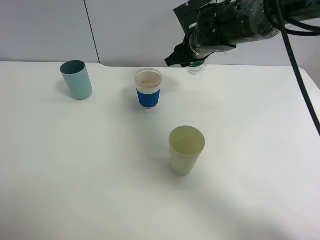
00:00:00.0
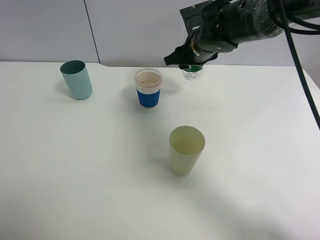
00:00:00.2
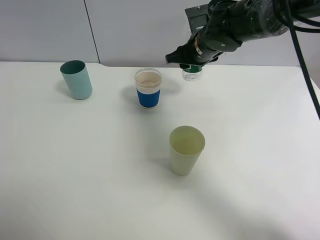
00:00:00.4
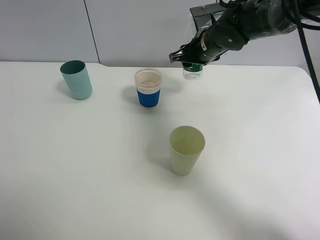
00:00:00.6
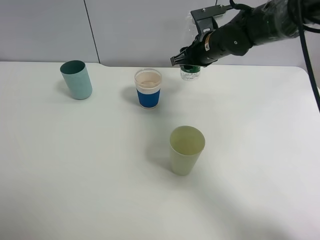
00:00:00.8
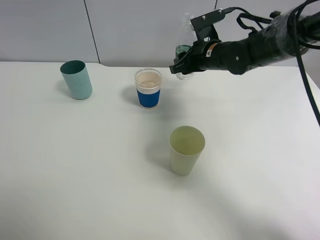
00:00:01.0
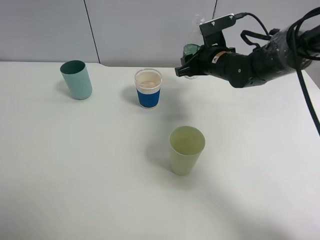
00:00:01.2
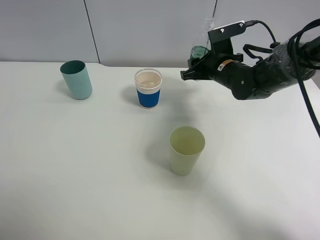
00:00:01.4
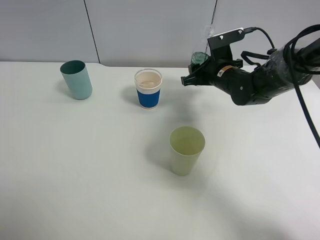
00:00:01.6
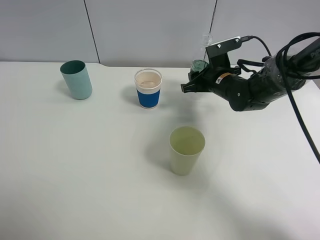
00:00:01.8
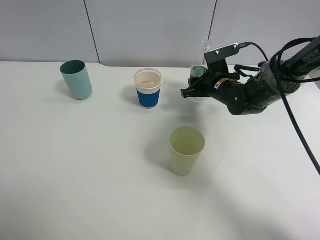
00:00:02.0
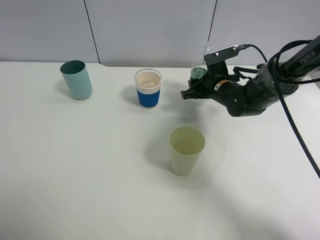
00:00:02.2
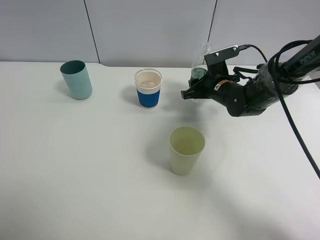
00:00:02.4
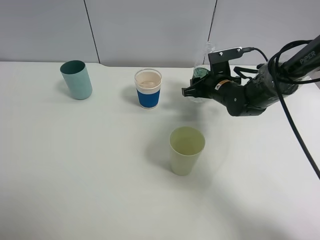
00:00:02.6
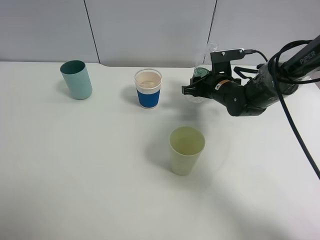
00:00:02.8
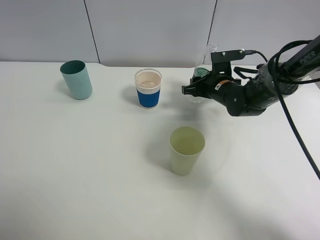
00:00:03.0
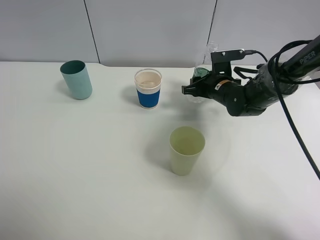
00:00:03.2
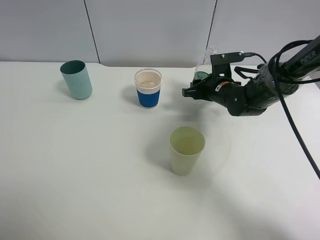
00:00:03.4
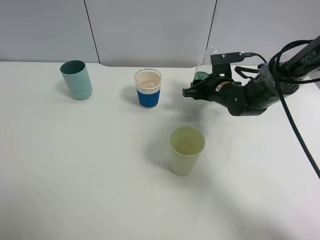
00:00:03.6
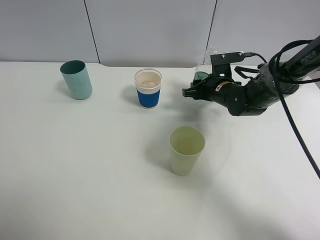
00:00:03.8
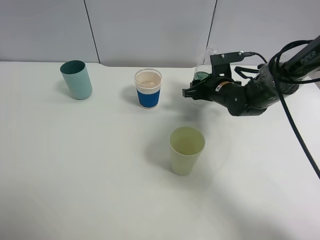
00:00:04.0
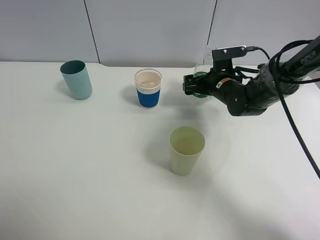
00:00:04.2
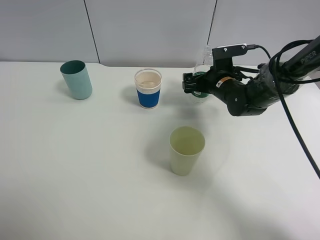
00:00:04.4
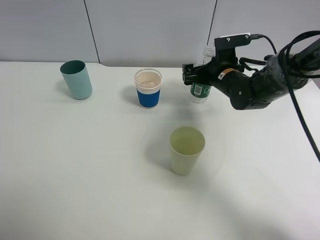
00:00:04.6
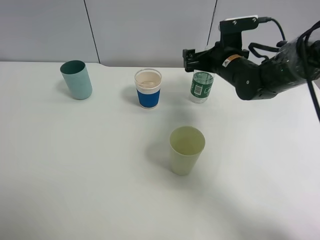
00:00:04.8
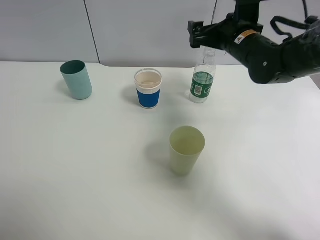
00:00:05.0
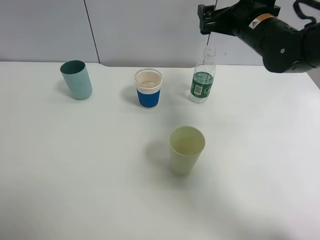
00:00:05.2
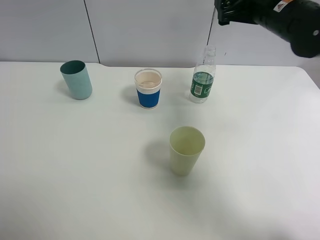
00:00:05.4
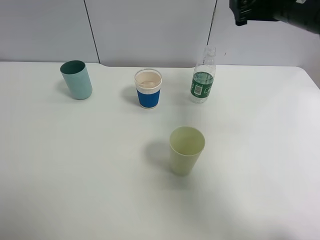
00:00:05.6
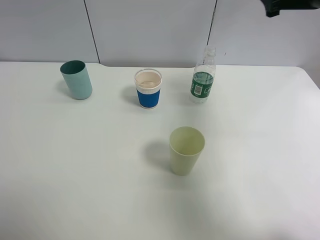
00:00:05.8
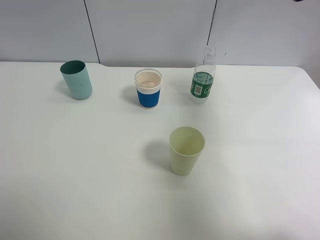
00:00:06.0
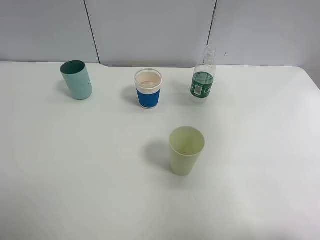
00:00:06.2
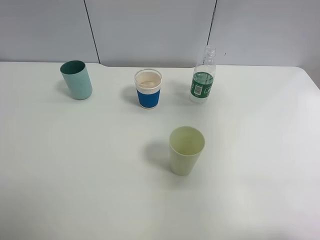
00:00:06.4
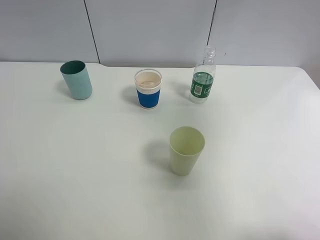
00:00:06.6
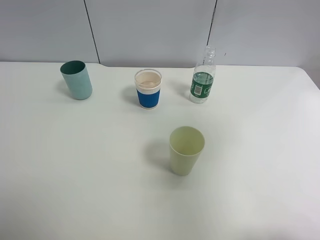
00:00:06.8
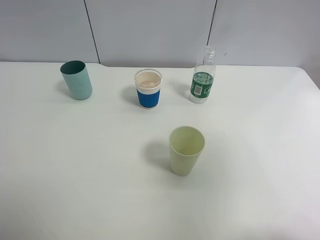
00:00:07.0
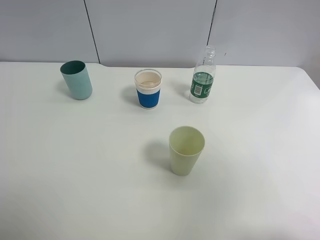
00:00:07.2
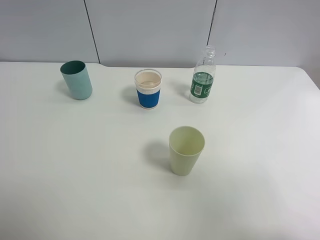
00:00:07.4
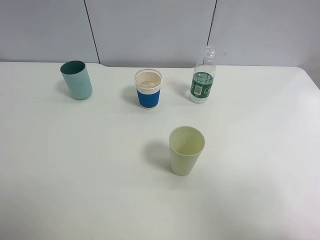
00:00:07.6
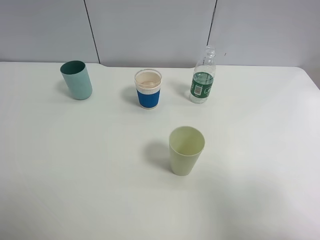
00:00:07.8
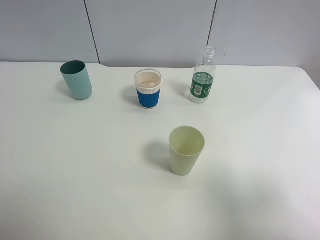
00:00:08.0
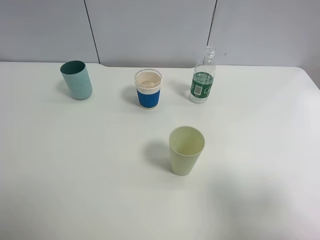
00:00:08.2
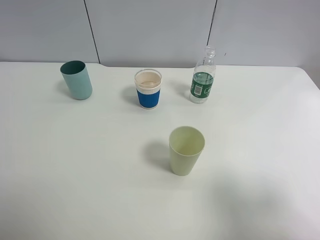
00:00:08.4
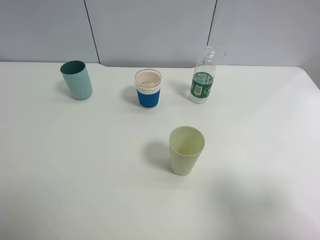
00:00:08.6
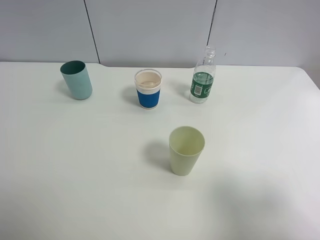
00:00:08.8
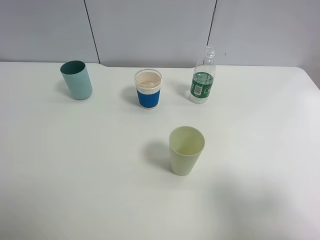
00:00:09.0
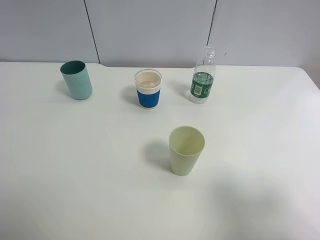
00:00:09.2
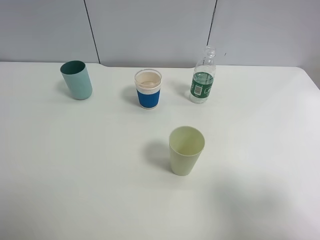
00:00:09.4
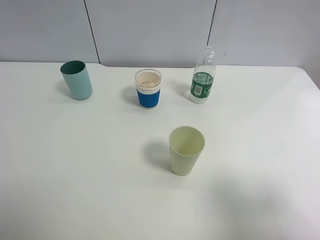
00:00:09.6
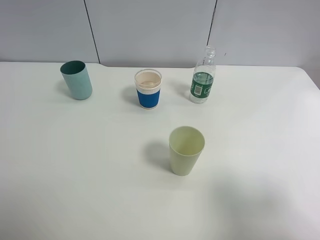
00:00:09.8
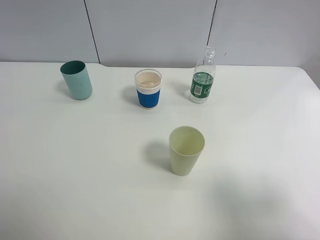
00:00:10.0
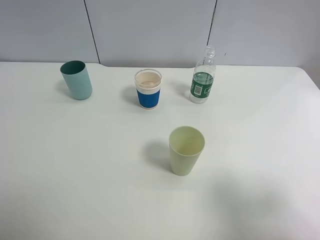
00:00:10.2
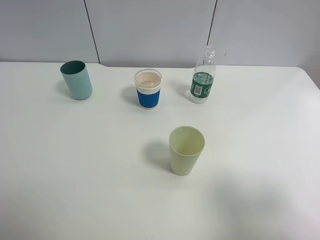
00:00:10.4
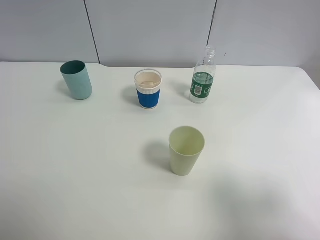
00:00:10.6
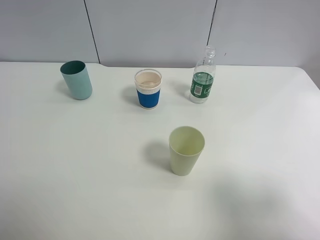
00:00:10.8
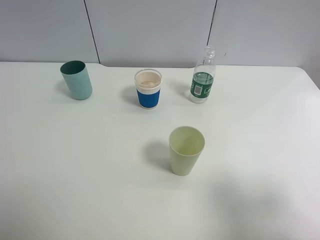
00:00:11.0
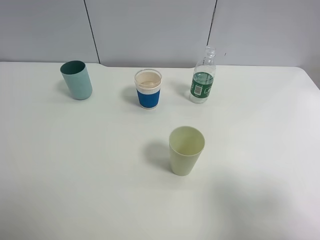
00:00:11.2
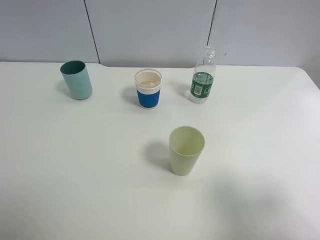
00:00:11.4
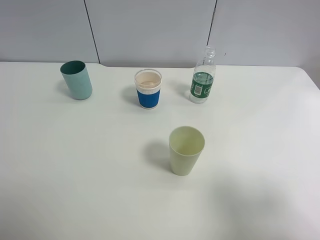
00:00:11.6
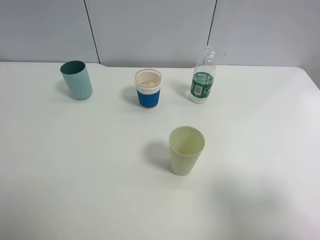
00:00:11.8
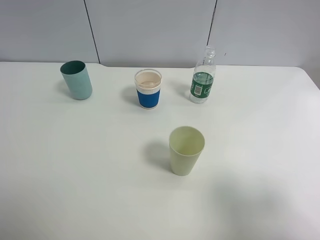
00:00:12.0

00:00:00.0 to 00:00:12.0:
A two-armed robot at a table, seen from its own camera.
Task of the whole recording: use a clamp to hold the bottle of the drink, pour the beverage into a random cup, then clamp the cup containing the drink and pour the drink into another random cup.
Step, 00:00:00.0 to 00:00:04.2: Place the water bottle on the table with right gripper.
00:00:00.0 to 00:00:01.6: The right gripper shifts approximately 10 cm downward and to the right.
00:00:01.6 to 00:00:03.0: The grippers stay close to where they were, moving slightly.
00:00:03.0 to 00:00:04.4: The right gripper opens up.
00:00:04.4 to 00:00:06.0: The right gripper shifts some 30 cm upward and to the right.
00:00:06.0 to 00:00:07.6: The right gripper shifts roughly 30 cm backward.
00:00:09.0 to 00:00:12.0: Both grippers stay about where they are.

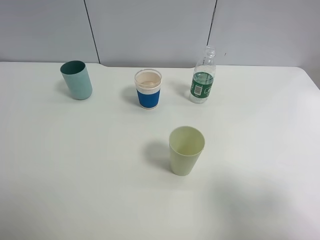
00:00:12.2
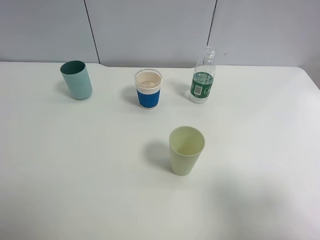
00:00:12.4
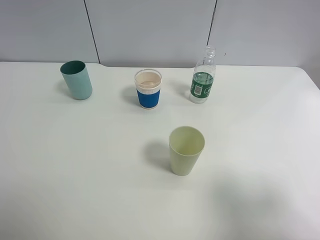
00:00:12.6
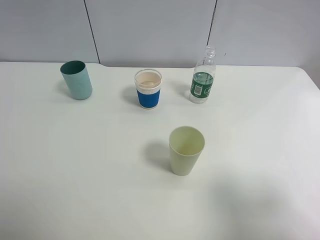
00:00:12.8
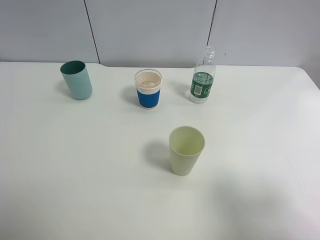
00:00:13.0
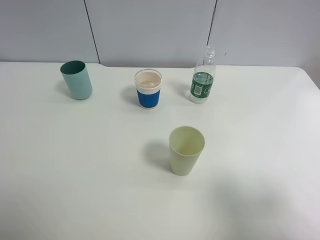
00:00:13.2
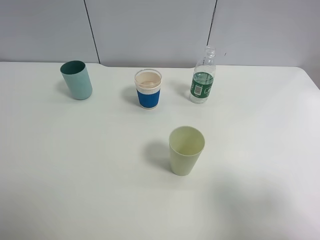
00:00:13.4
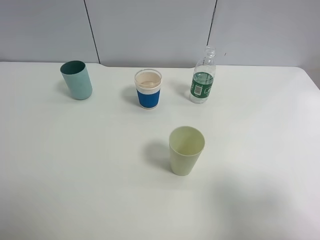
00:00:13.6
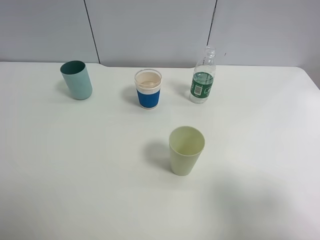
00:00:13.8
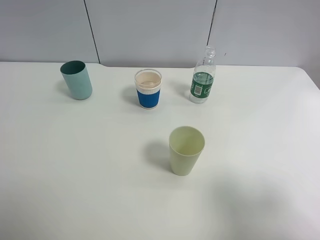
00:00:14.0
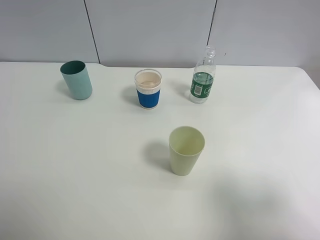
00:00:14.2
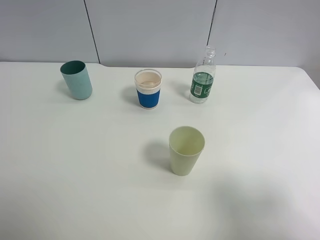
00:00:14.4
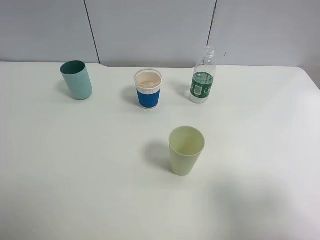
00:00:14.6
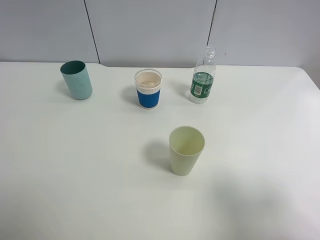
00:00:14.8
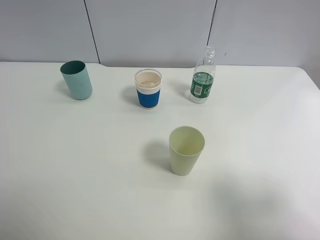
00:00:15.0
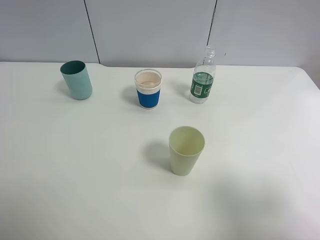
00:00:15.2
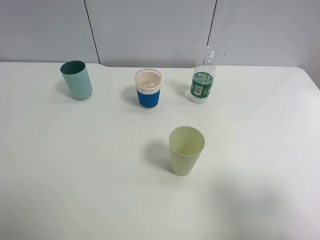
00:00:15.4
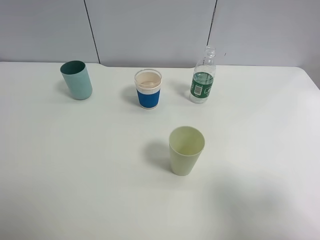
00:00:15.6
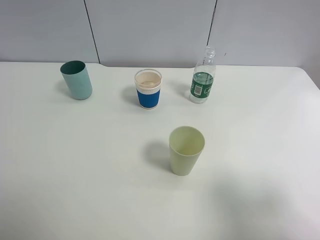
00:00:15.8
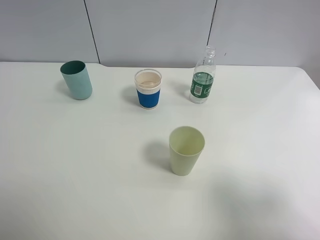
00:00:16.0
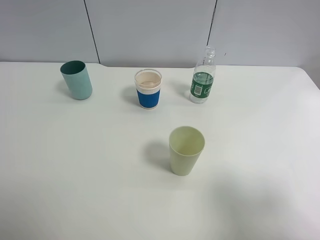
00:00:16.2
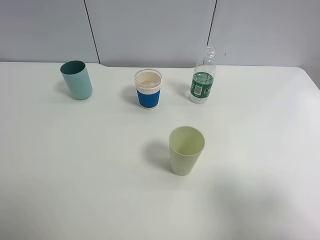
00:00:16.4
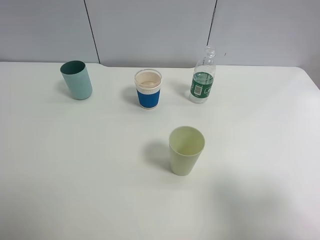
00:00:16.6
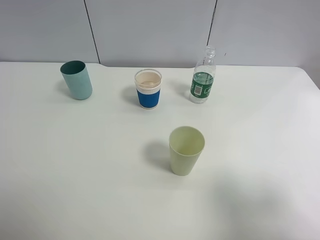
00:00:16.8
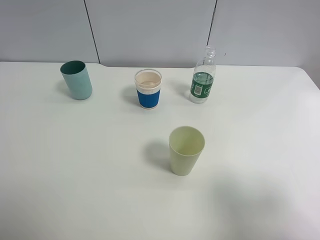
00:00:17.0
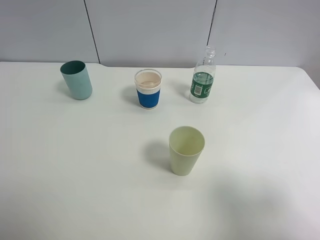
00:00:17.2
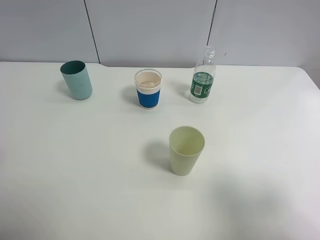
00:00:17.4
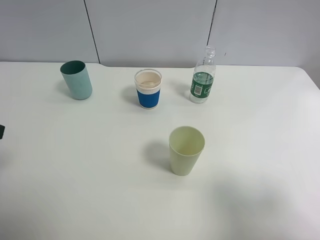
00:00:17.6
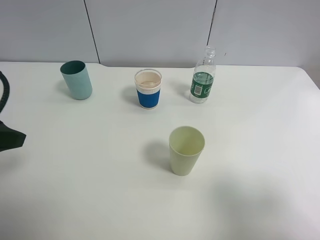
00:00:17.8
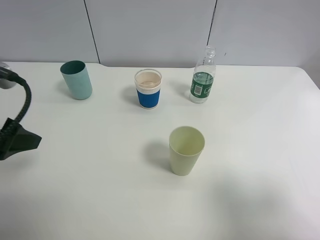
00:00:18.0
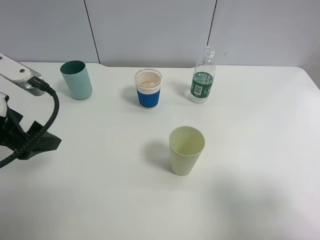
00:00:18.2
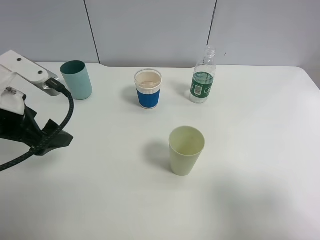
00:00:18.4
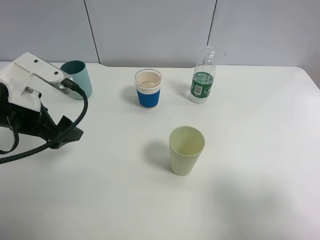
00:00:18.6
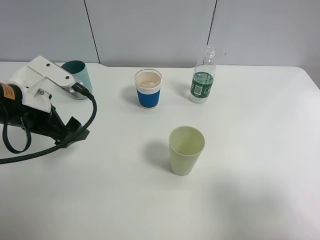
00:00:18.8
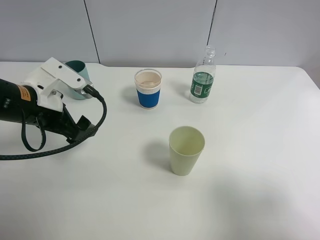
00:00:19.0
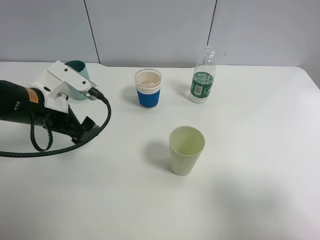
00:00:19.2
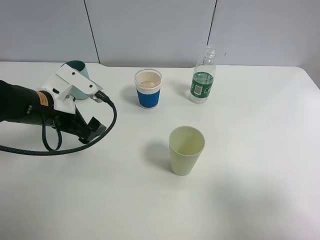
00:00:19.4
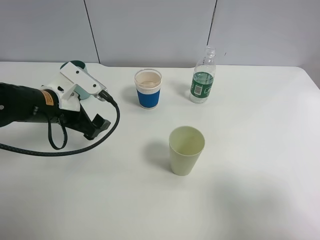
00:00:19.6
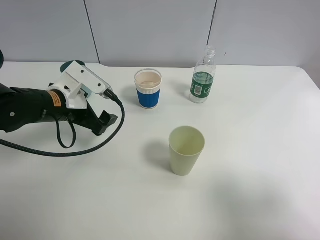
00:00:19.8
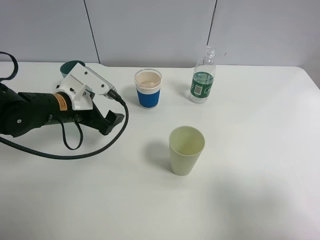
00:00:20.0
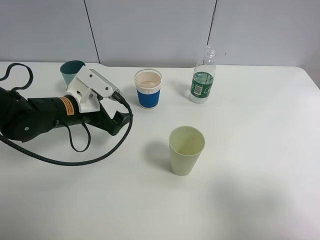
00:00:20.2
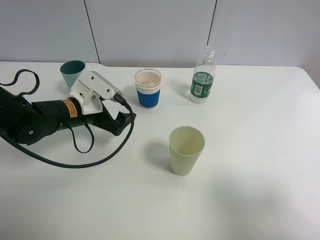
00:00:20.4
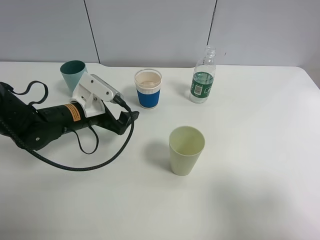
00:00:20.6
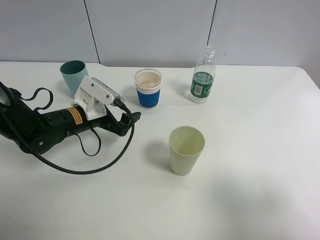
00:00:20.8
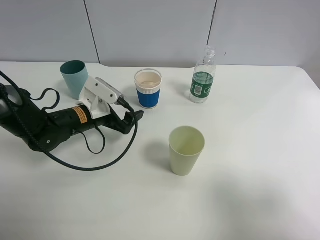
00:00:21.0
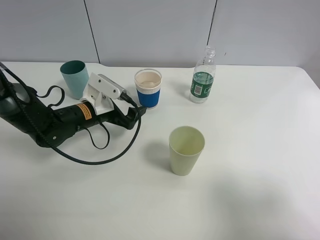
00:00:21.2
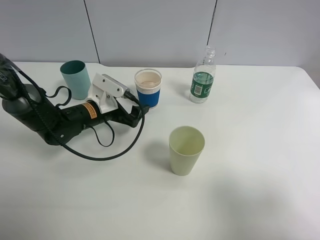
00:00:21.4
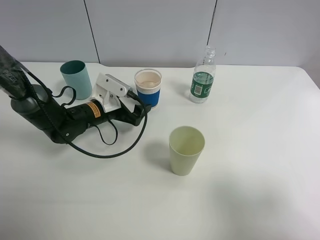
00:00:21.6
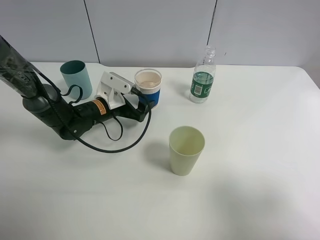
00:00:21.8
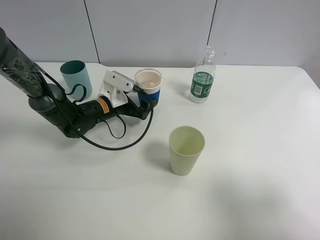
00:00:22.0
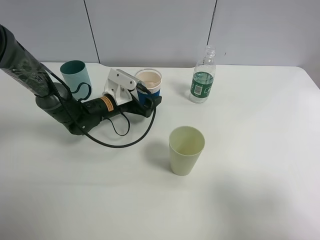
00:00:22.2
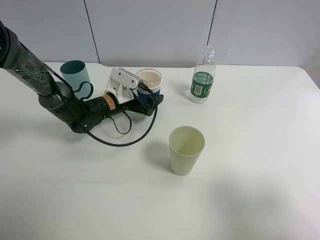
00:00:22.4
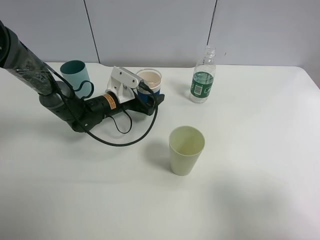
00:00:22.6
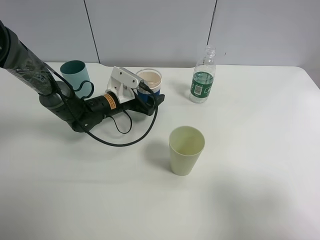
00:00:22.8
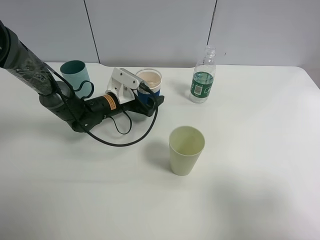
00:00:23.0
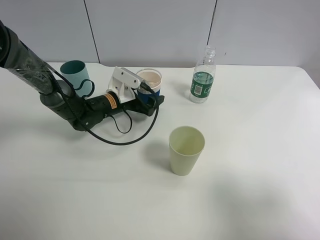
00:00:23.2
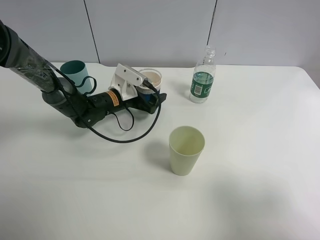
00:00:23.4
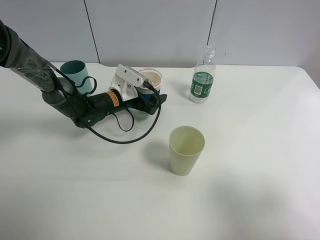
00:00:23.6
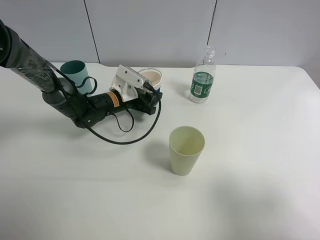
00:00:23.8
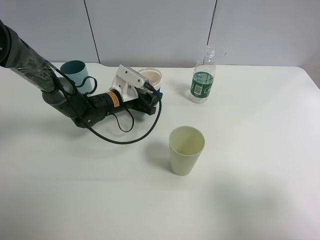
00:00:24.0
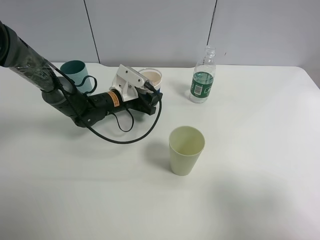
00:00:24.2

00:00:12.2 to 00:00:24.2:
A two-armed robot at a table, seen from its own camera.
Task of the whole recording: use a clamp to hold the bottle of the drink, pour the beverage into a random cup, then clamp the cup containing the drink and pour the drink into another random cup.
00:00:12.2 to 00:00:16.6: Both grippers stay about where they are.
00:00:16.6 to 00:00:18.2: The left gripper is displaced forward and to the right by roughly 20 cm.
00:00:18.2 to 00:00:19.8: The left gripper shifts approximately 15 cm forward, downward and to the right.
00:00:19.8 to 00:00:21.2: The left gripper travels downward by about 5 cm.
00:00:21.2 to 00:00:22.6: The left gripper shifts some 5 cm forward.
00:00:22.6 to 00:00:24.2: The left gripper closes up.
